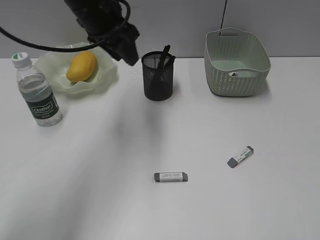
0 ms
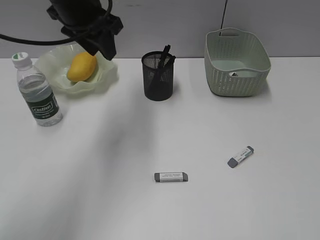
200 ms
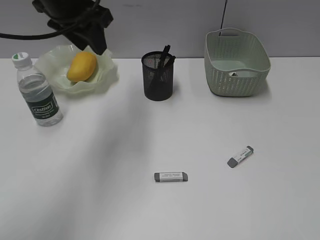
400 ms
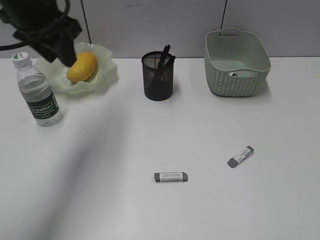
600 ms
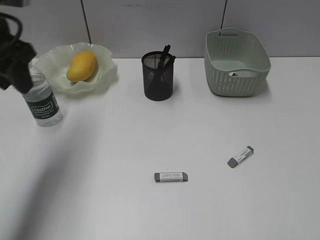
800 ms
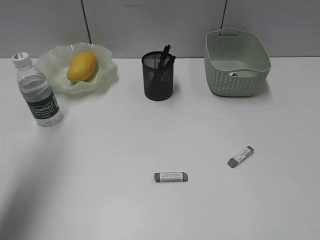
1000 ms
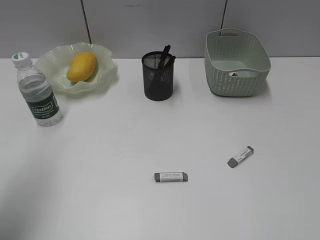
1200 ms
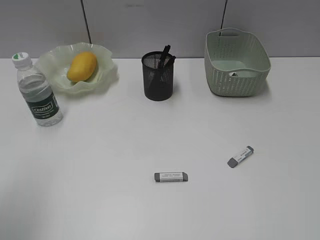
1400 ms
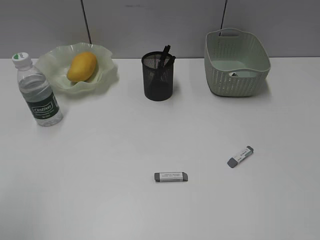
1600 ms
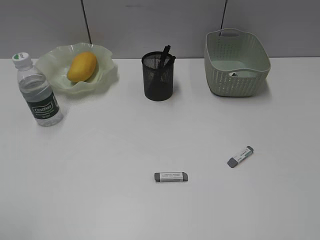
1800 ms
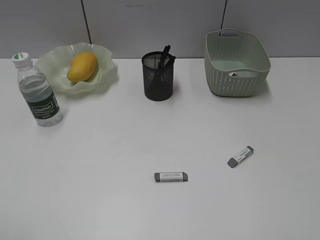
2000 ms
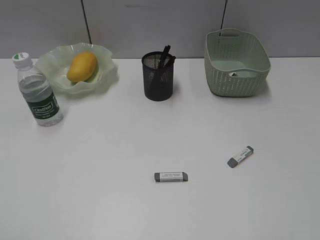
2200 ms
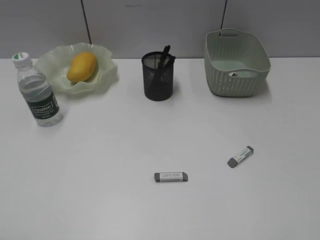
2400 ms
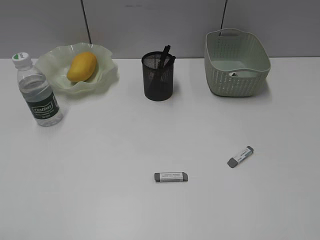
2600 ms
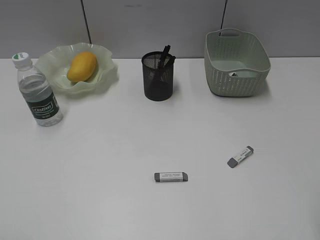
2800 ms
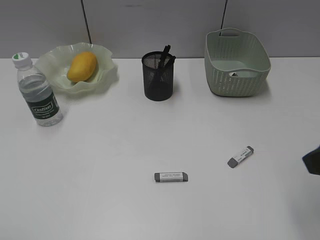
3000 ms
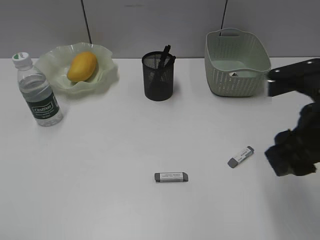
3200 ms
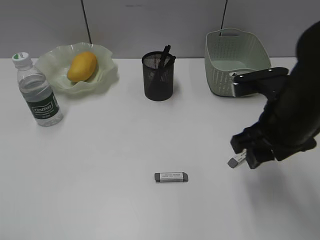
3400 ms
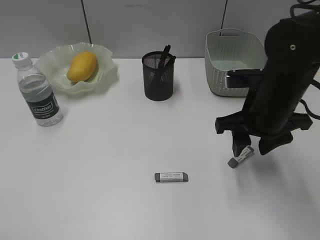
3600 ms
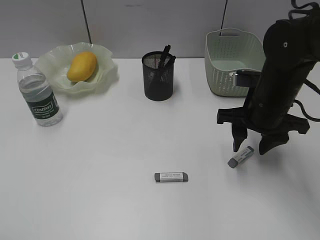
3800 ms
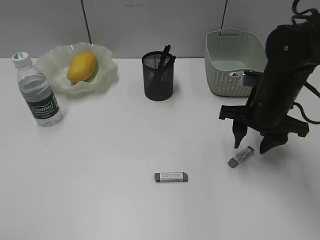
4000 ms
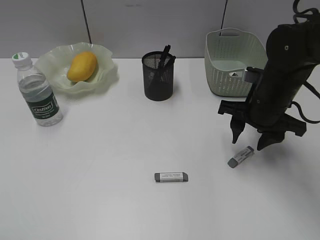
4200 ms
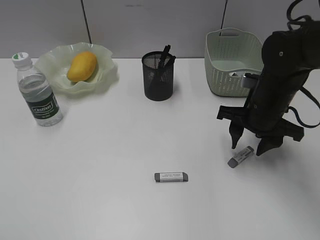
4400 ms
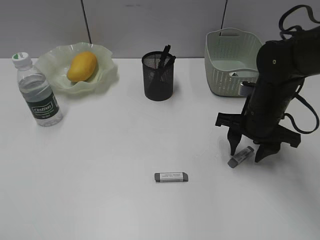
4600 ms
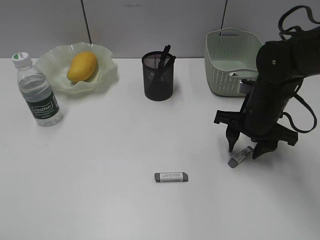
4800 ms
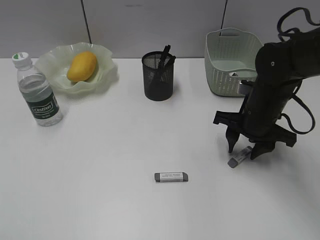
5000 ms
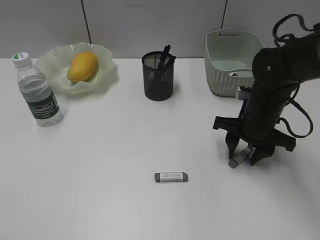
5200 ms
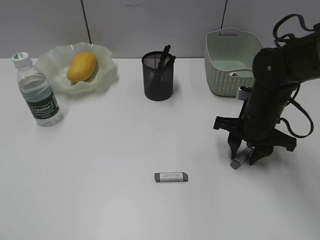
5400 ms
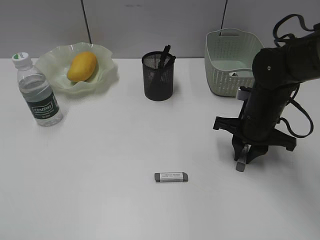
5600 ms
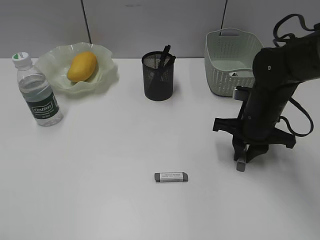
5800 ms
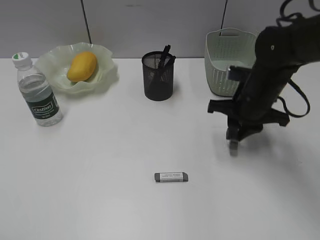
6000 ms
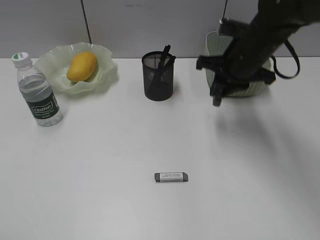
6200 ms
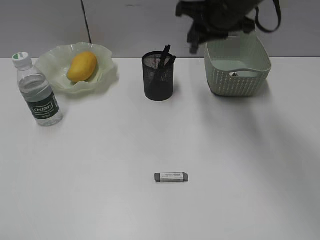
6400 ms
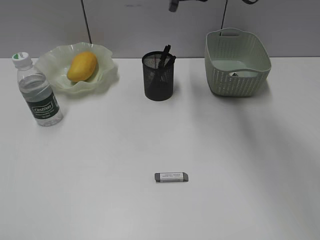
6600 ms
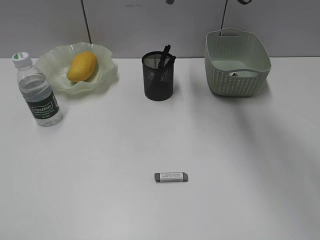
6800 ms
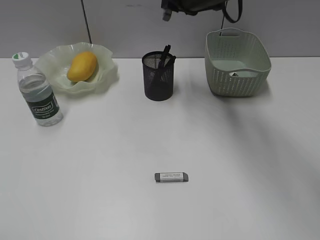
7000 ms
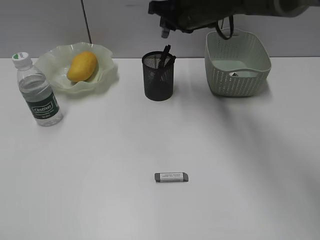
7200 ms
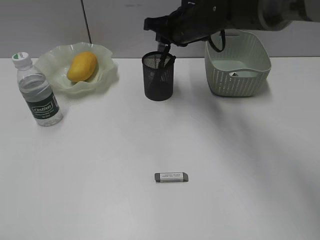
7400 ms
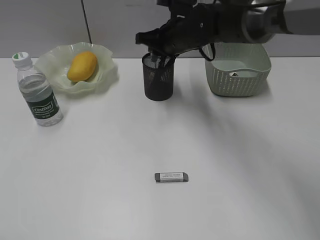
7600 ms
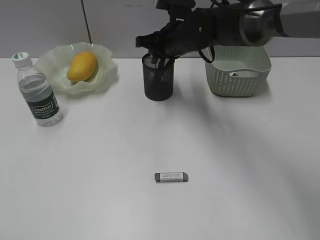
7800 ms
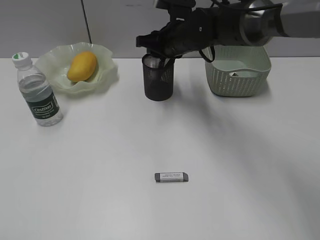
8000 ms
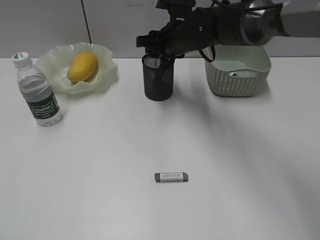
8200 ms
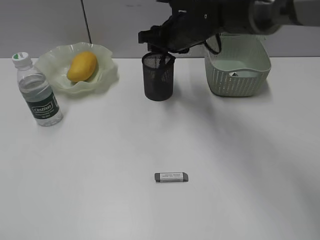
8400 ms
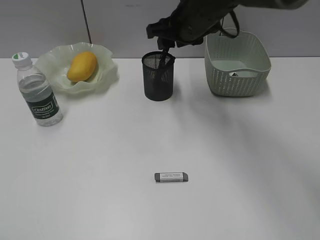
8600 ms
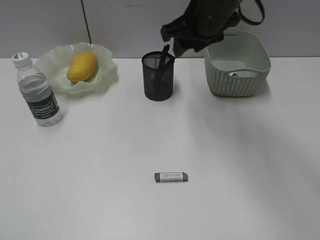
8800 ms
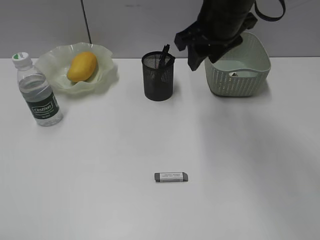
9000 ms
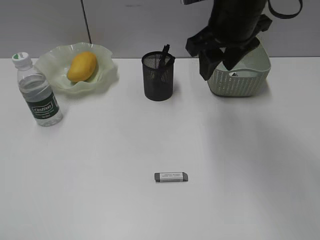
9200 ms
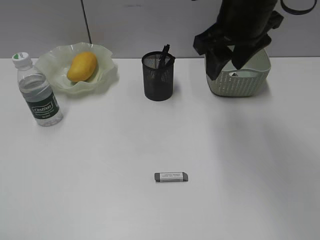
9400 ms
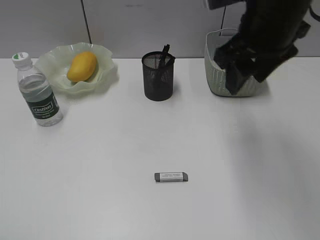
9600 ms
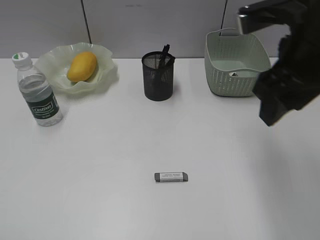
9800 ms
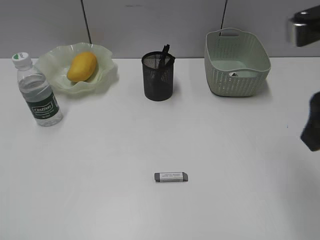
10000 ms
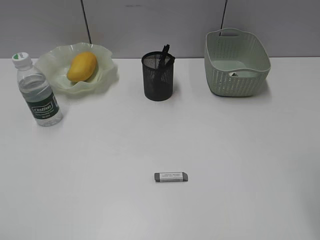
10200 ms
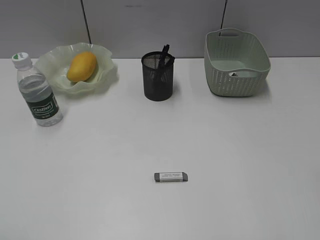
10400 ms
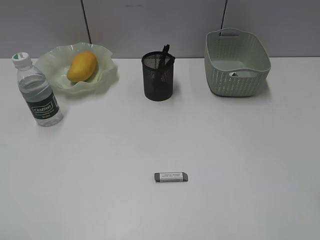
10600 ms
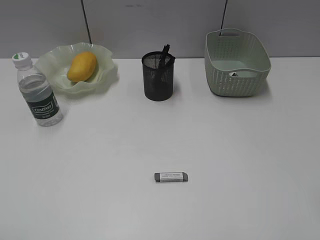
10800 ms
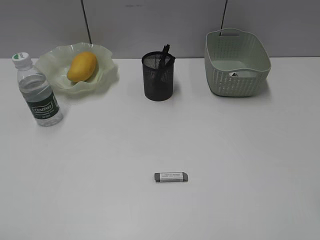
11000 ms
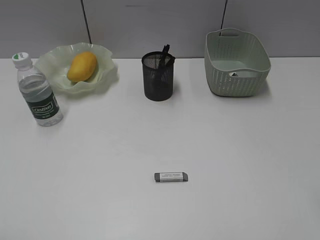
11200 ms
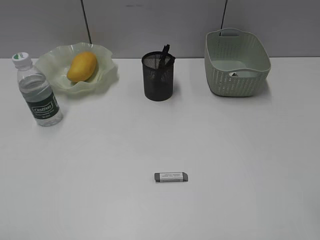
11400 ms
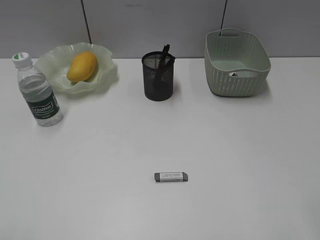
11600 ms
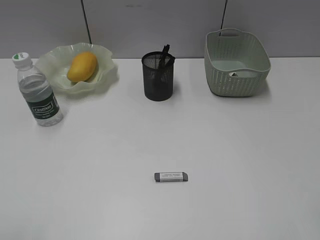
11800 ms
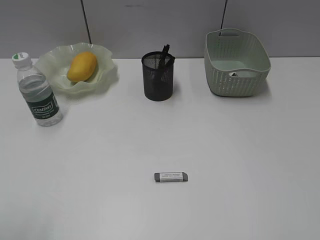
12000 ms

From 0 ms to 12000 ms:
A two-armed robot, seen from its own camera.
Step, from 0 ms to 5800 ms: Grasp the eraser with right gripper.
Step, from 6000 ms to 8400 ms: Place the eraser in pen holder with right gripper.
From 0 ms to 1600 ms: The left gripper travels backward and to the left by some 40 cm.
From 1600 ms to 3000 ms: The right gripper heads forward and to the left, covering some 10 cm.
From 3000 ms to 4400 ms: The right gripper is displaced forward and downward by roughly 20 cm.
From 4400 ms to 6000 ms: The right gripper closes its fingers.
From 6000 ms to 7600 ms: The right gripper goes roughly 15 cm to the left and forward, and travels upward and back again, approximately 20 cm each way.
From 7600 ms to 9000 ms: The right gripper heads upward and backward, covering some 10 cm, and opens.
From 9000 ms to 10400 ms: The right gripper travels backward and to the right by some 30 cm.

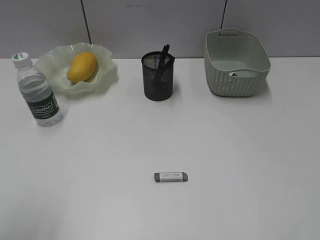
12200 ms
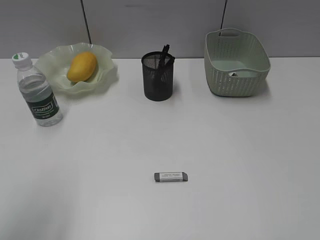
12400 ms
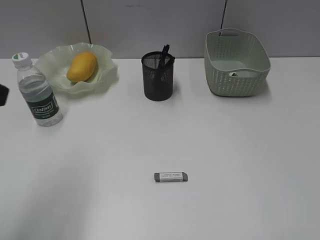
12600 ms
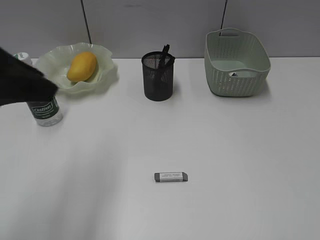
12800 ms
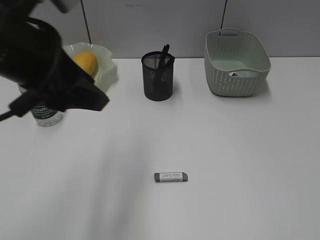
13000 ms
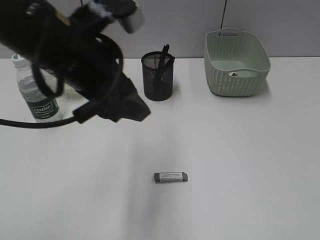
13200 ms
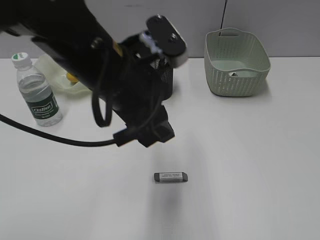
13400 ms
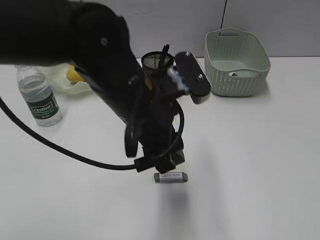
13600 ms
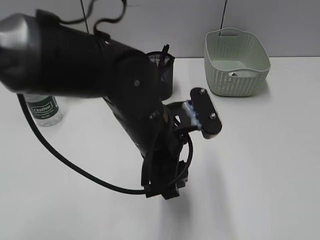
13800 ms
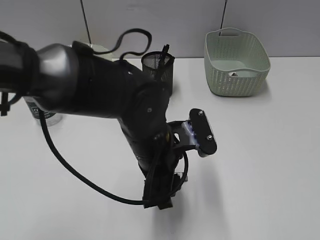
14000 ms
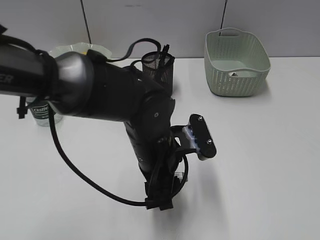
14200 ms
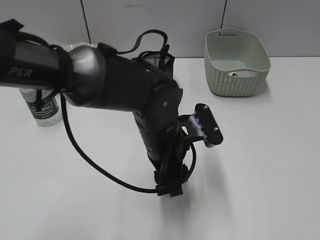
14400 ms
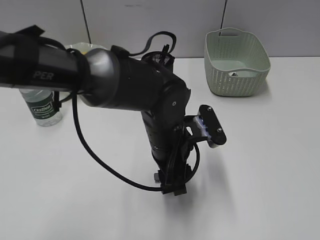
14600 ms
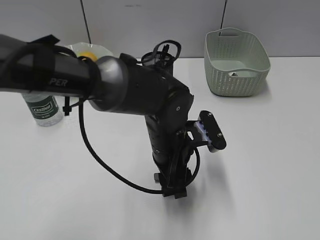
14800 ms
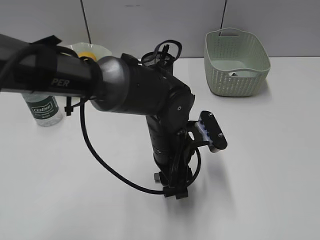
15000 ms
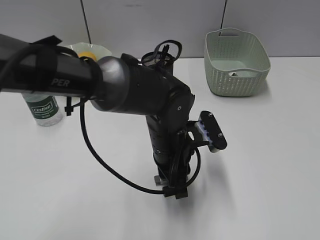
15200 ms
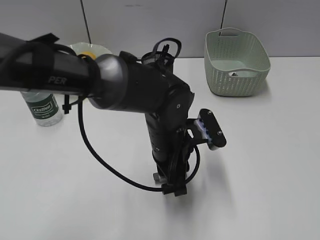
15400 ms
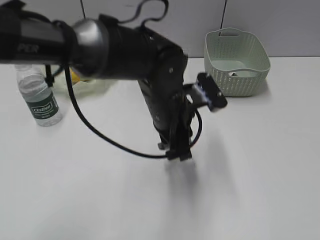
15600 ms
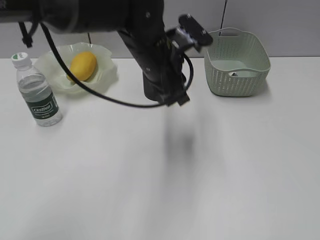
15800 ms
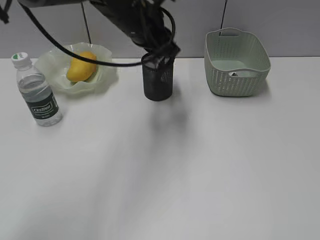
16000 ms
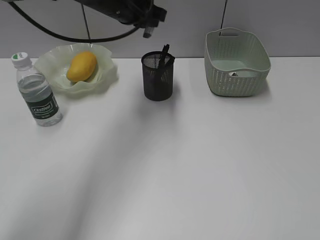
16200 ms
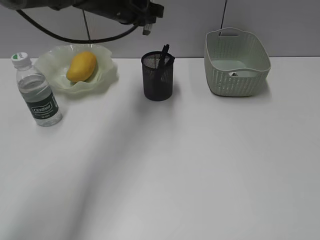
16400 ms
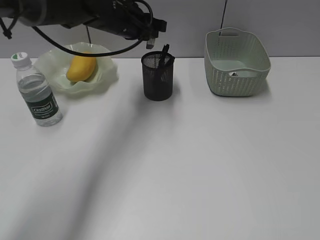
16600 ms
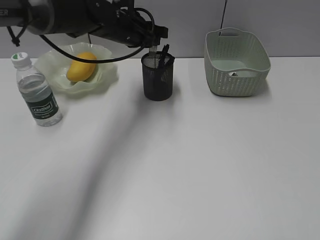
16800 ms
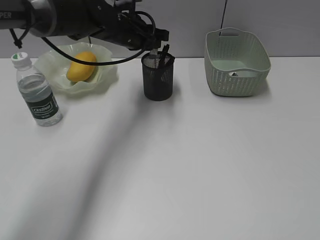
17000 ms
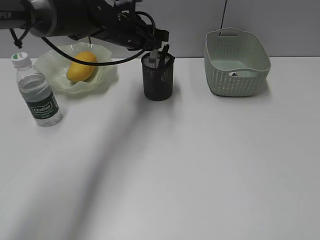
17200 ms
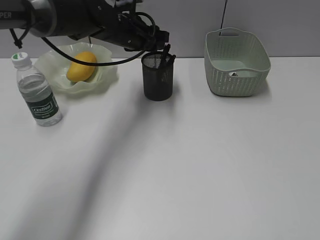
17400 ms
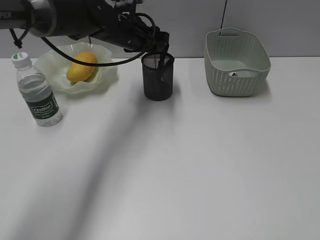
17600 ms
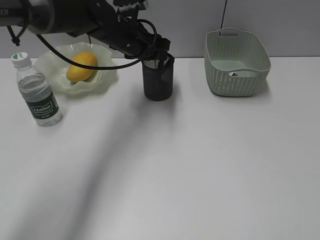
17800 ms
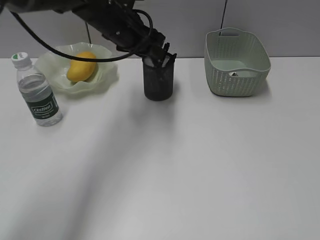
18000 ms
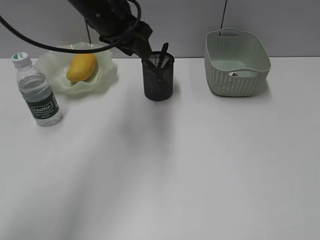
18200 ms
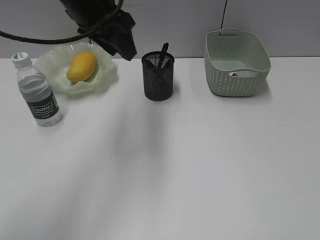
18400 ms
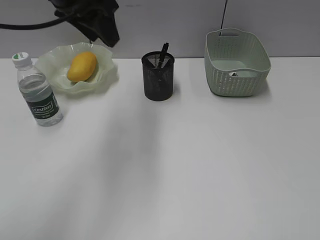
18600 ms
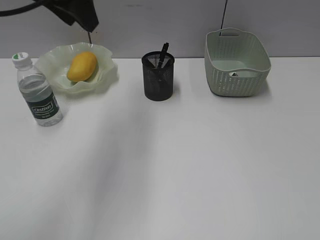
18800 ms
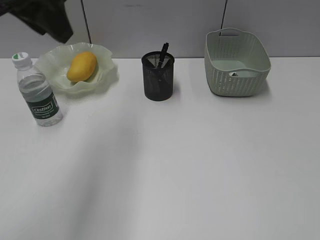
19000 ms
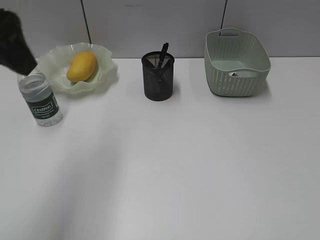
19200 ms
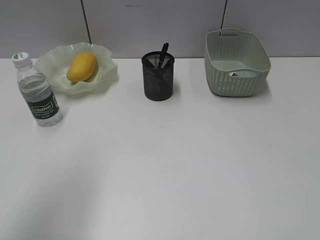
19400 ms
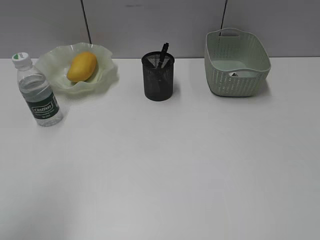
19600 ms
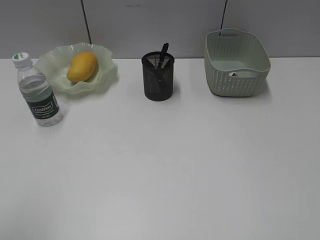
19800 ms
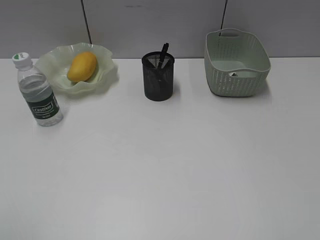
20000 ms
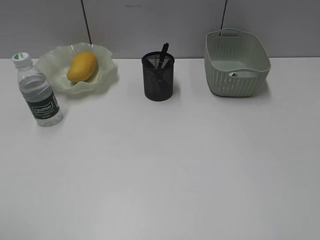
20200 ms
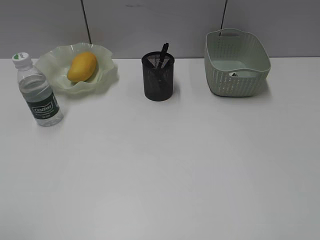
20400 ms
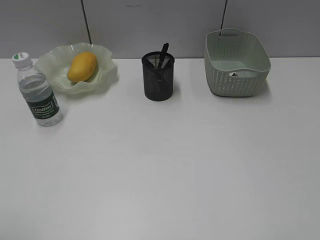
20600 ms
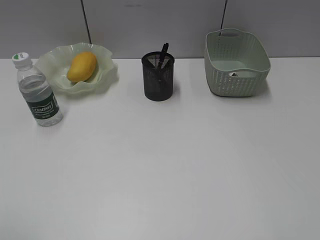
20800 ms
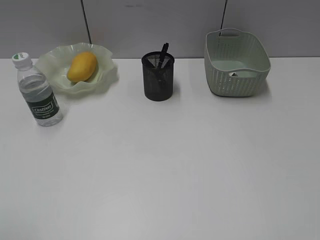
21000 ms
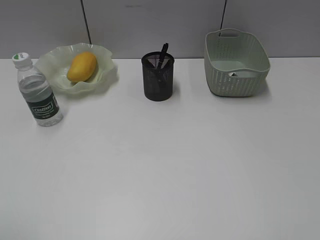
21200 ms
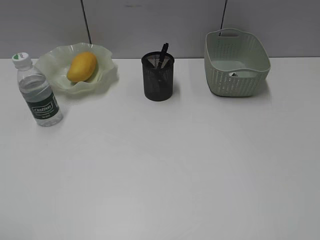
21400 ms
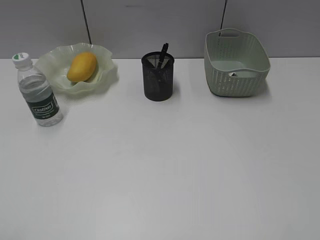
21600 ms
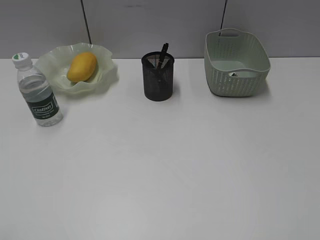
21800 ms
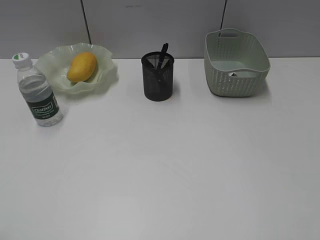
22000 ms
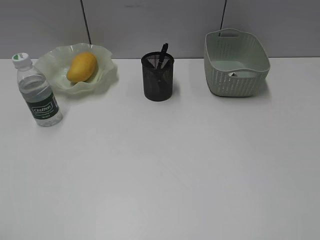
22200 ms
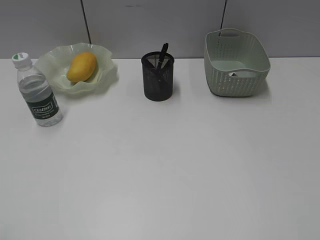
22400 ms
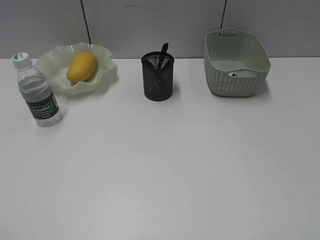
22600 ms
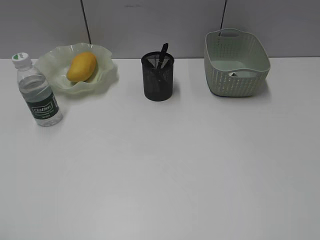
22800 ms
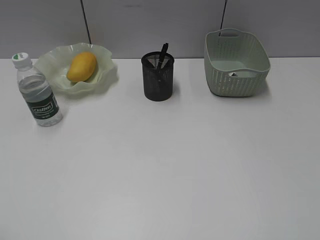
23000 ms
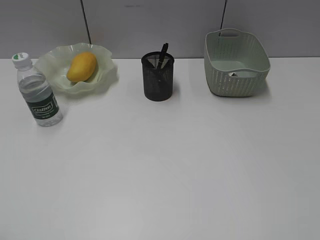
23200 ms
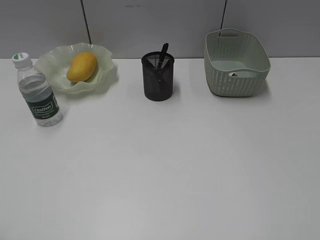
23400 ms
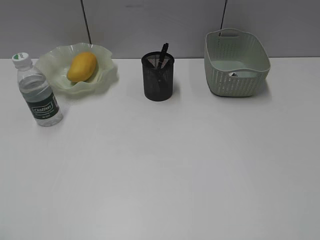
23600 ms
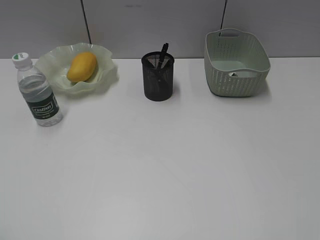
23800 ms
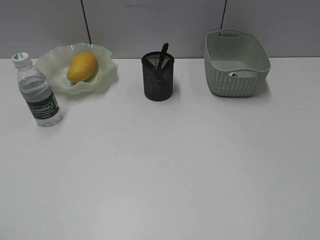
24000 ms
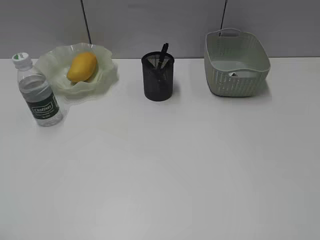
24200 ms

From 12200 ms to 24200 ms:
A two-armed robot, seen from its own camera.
Step, from 12200 ms to 15200 ms: Grasp the eraser with left gripper.
Step, from 15400 ms to 18200 ms: Place the eraser in pen holder with left gripper.
From 12200 ms to 13800 ms: The left gripper moves to the right, forward and downward, roughly 35 cm, and opens up.
From 13800 ms to 15200 ms: The left gripper heads downward, covering about 5 cm, and closes its fingers.
From 15200 ms to 16600 ms: The left gripper travels forward, upward and to the left by roughly 25 cm.
From 16600 ms to 18200 ms: The left gripper moves backward and upward, approximately 10 cm, and opens.
From 18200 ms to 19800 ms: The left gripper moves backward and to the left, some 40 cm.
